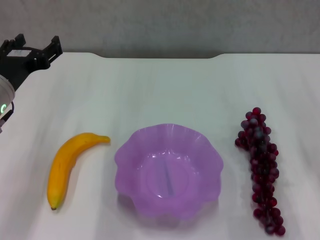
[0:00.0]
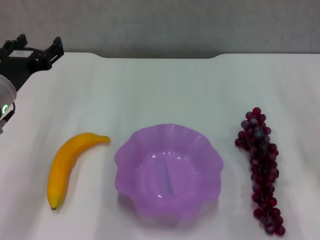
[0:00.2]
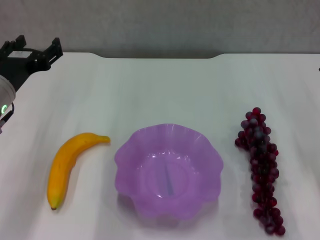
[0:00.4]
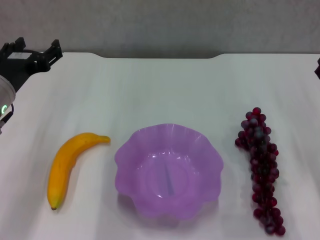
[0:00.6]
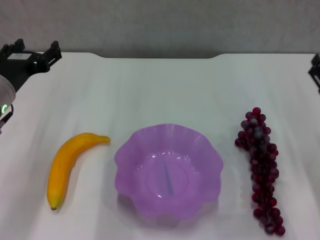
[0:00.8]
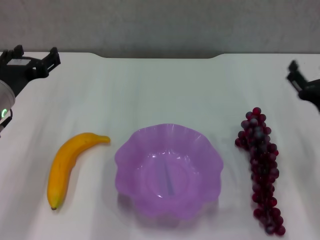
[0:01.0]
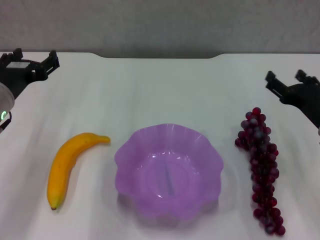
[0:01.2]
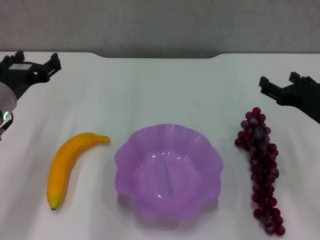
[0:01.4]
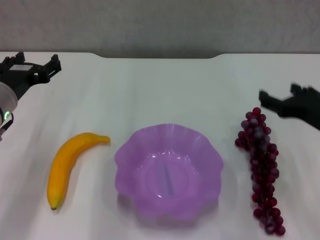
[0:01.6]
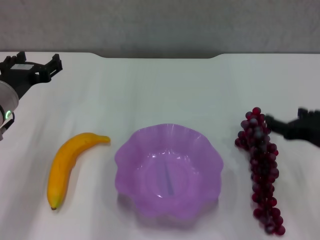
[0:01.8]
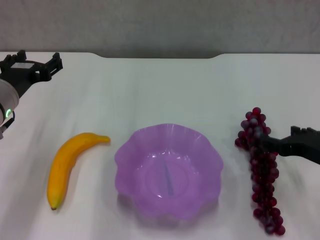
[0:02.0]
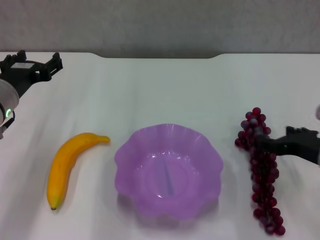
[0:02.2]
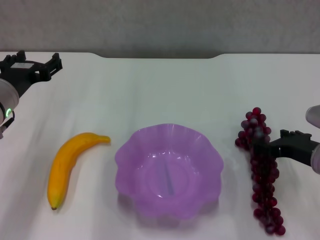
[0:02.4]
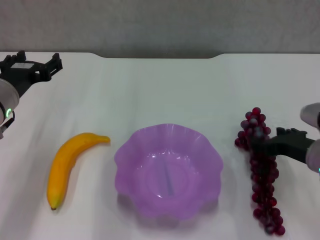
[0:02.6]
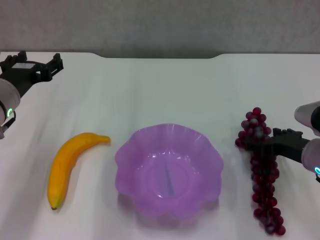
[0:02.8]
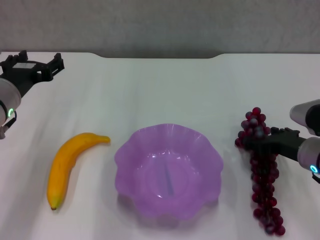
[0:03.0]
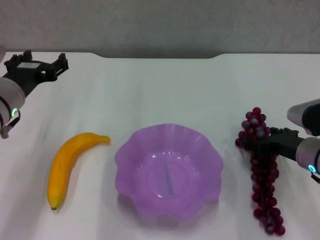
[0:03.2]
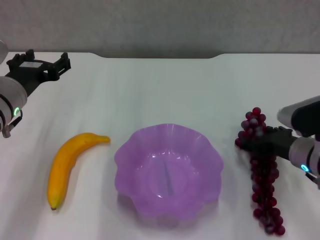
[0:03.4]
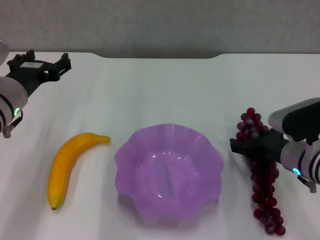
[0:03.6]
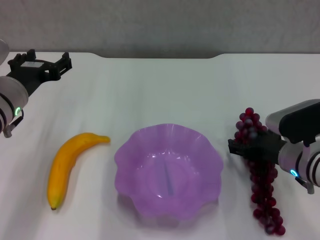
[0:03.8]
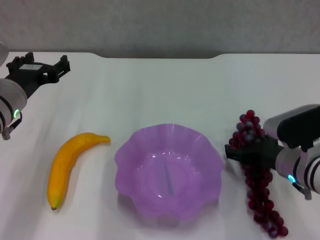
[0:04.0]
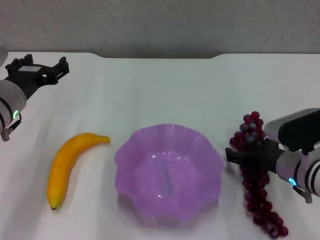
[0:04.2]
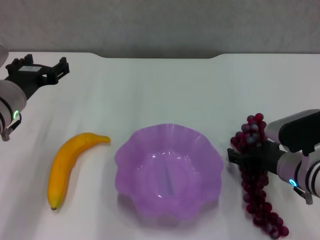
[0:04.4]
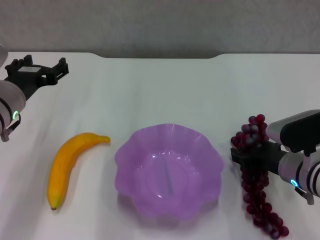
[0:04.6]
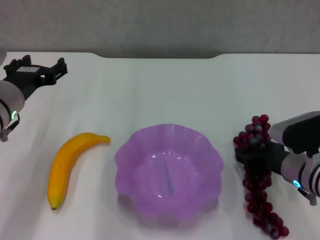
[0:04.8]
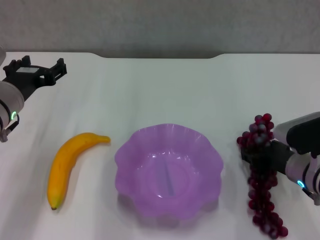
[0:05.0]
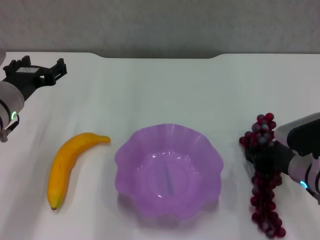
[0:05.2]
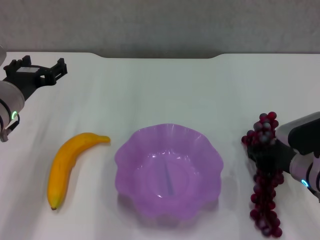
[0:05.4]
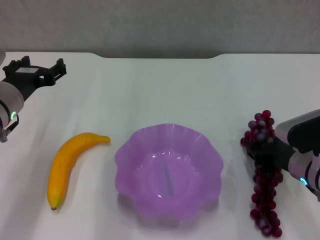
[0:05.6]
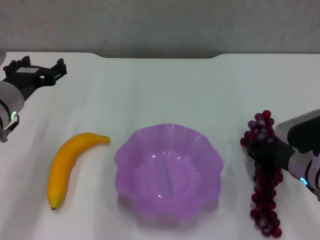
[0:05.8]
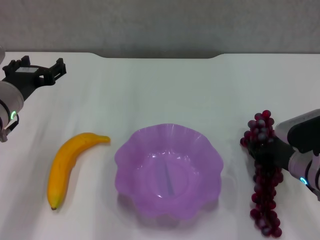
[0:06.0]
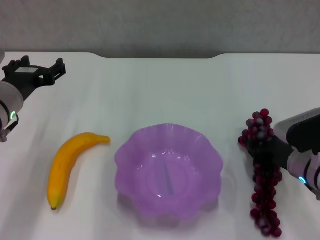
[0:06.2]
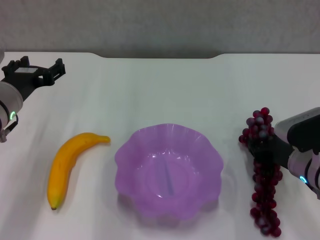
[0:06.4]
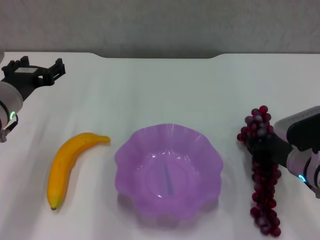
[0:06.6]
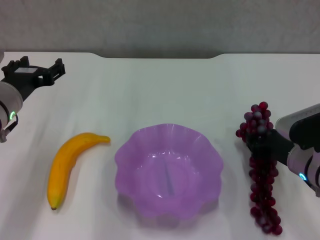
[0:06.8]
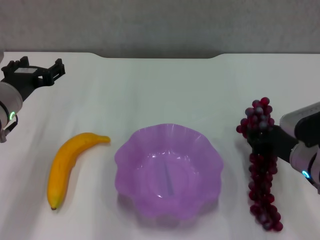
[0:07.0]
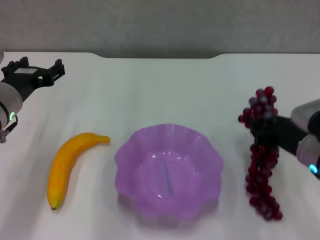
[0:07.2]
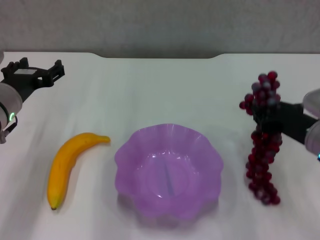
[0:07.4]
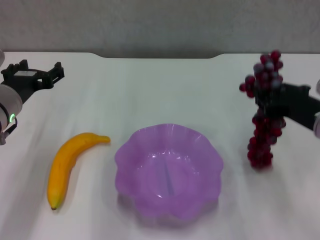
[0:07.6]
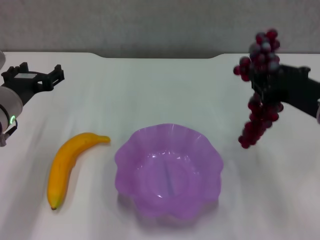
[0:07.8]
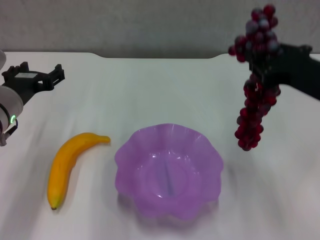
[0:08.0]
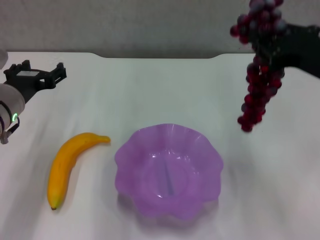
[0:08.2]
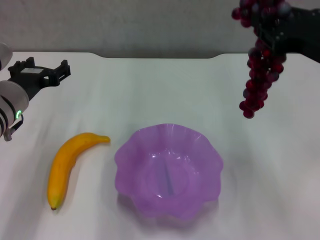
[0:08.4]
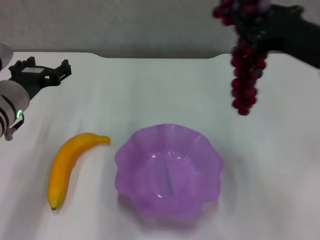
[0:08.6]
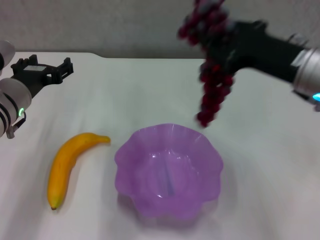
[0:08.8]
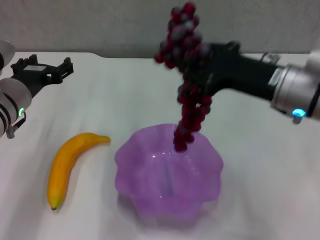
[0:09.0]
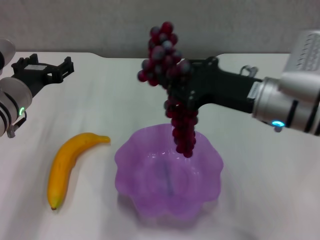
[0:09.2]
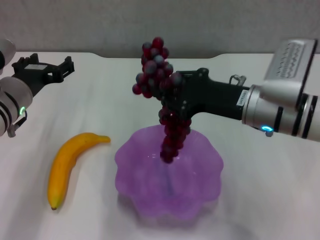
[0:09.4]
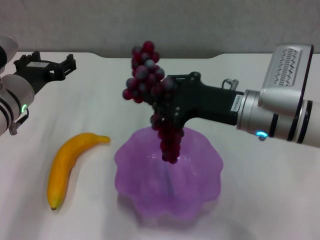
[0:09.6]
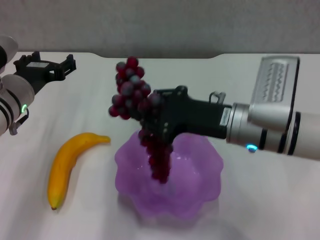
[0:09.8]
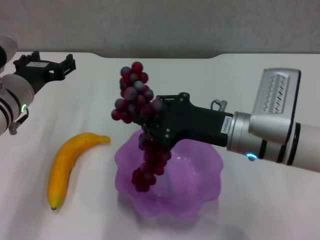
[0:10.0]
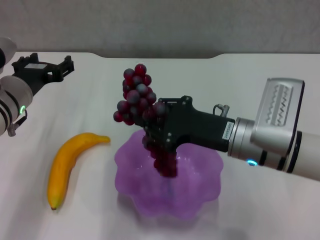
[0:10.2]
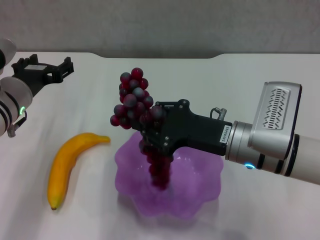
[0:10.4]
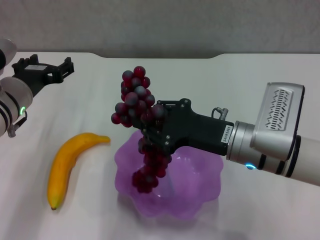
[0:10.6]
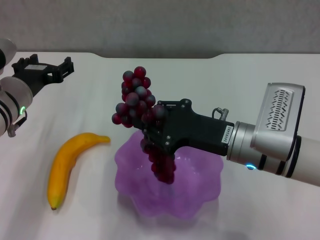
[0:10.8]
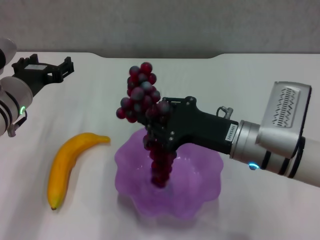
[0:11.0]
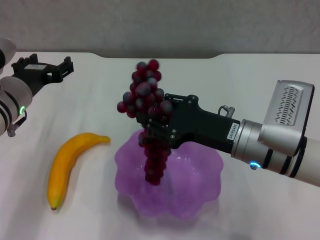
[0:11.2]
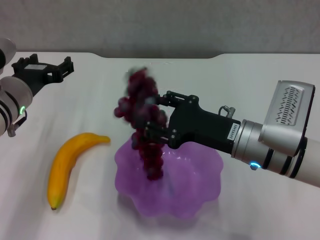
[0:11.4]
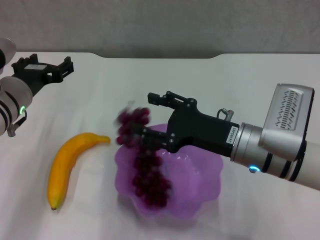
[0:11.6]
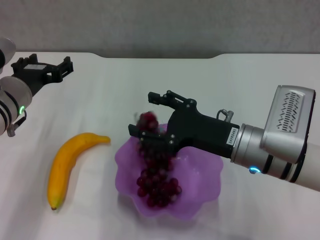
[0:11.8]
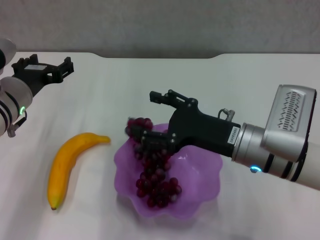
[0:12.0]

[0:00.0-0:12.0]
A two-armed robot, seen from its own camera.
Step, 0:00.0 to 0:05.2: Grasp the grape with right gripper.
0:00.0 to 0:01.6: The right gripper shifts about 5 cm upward.
0:01.6 to 0:03.0: The right gripper goes about 5 cm downward.
0:03.0 to 0:04.4: There are only small adjustments of the grippers.
0:04.4 to 0:06.0: The right gripper closes up.
0:06.0 to 0:07.6: The right gripper heads upward, covering some 10 cm.
0:07.6 to 0:09.0: The right gripper moves to the left, approximately 5 cm.
0:09.0 to 0:10.4: The right gripper is displaced downward by roughly 5 cm.
0:10.4 to 0:12.0: The right gripper opens up.

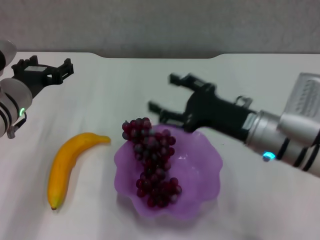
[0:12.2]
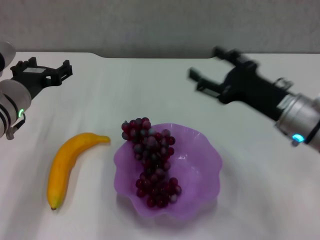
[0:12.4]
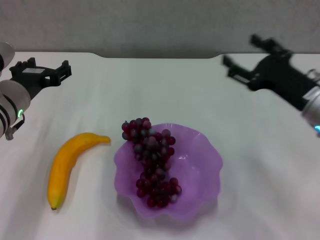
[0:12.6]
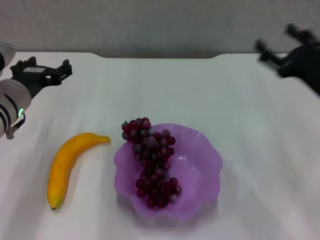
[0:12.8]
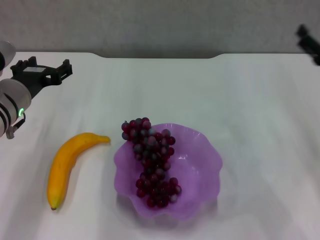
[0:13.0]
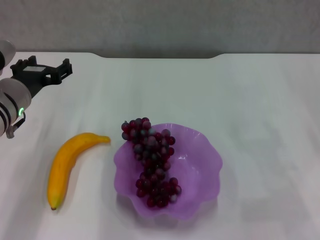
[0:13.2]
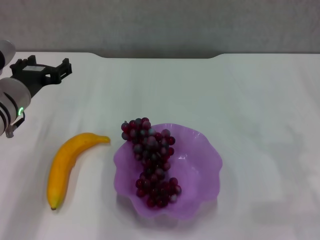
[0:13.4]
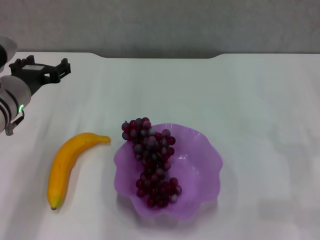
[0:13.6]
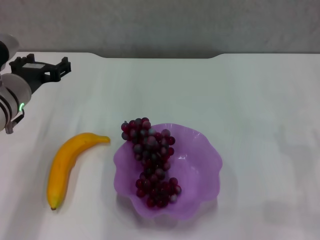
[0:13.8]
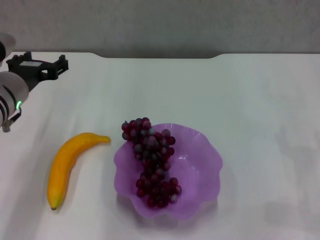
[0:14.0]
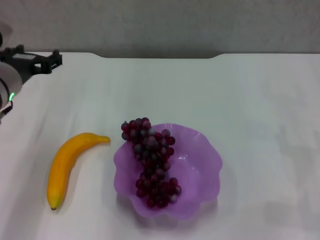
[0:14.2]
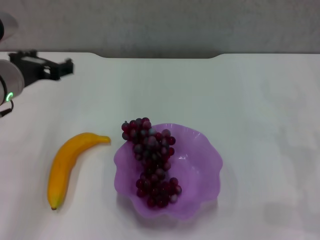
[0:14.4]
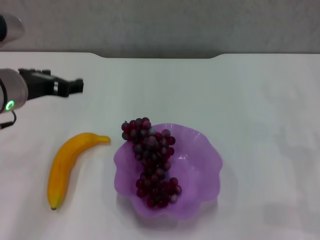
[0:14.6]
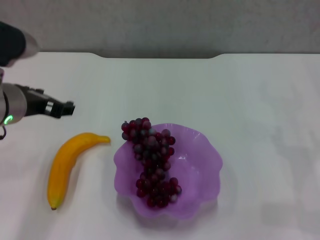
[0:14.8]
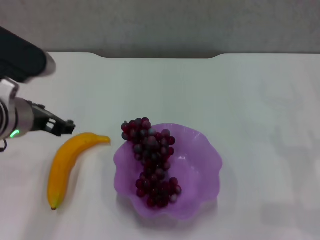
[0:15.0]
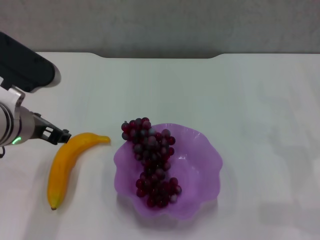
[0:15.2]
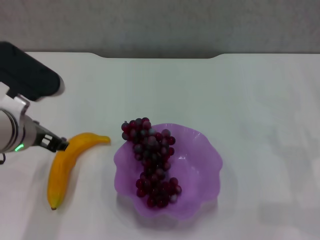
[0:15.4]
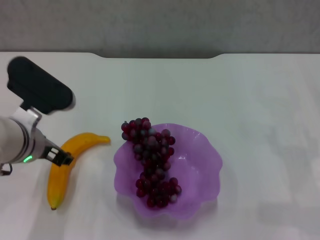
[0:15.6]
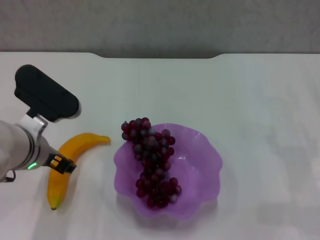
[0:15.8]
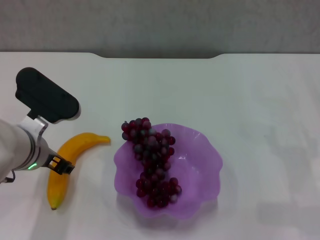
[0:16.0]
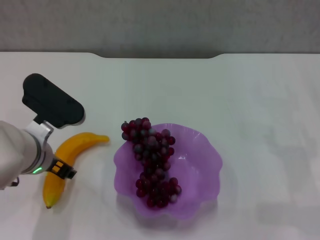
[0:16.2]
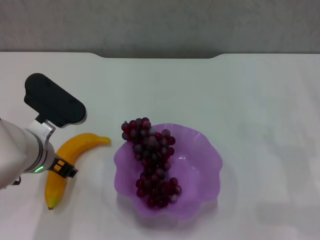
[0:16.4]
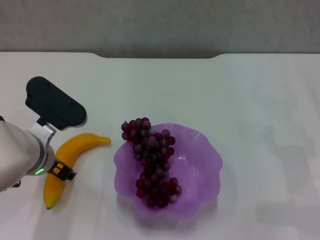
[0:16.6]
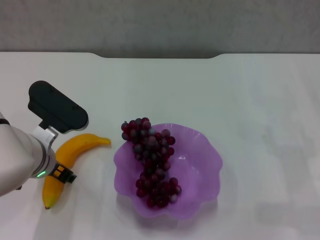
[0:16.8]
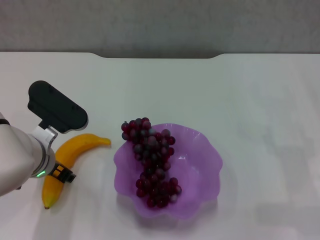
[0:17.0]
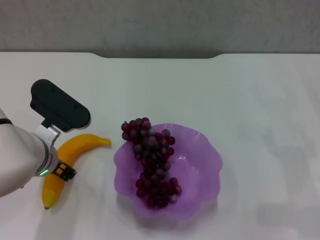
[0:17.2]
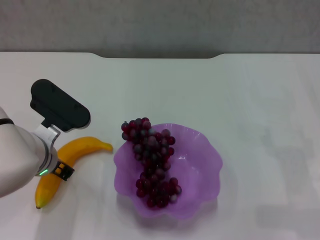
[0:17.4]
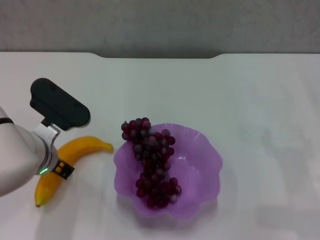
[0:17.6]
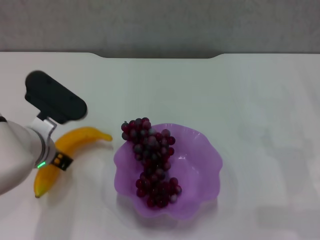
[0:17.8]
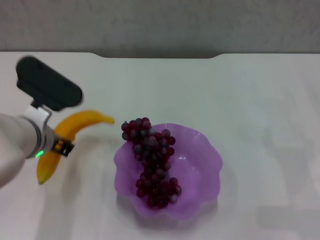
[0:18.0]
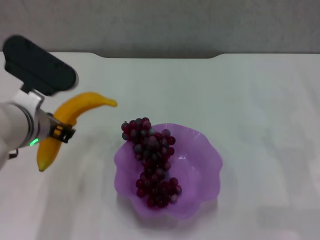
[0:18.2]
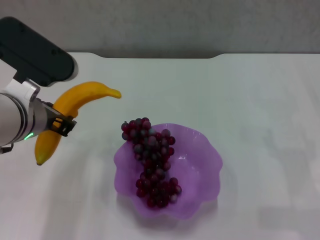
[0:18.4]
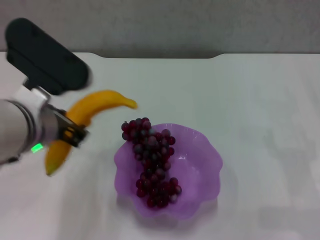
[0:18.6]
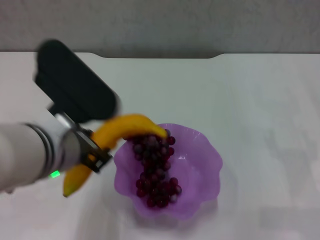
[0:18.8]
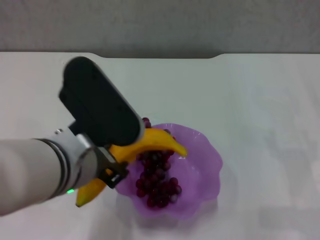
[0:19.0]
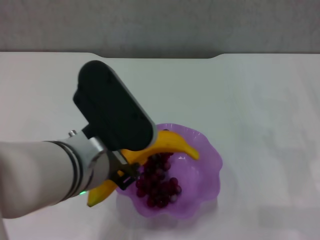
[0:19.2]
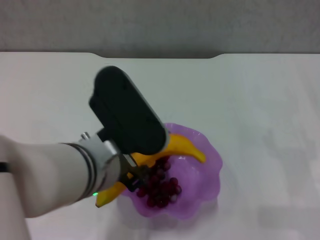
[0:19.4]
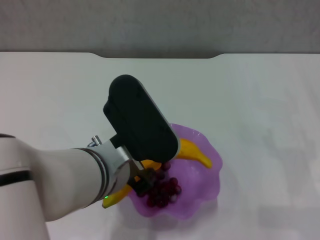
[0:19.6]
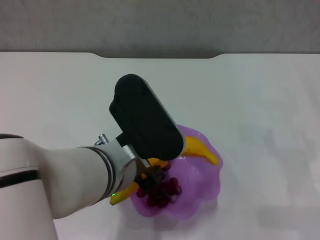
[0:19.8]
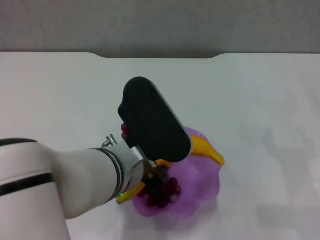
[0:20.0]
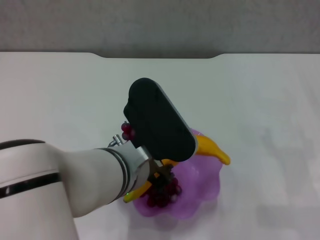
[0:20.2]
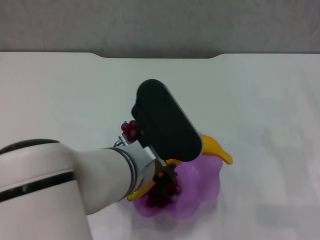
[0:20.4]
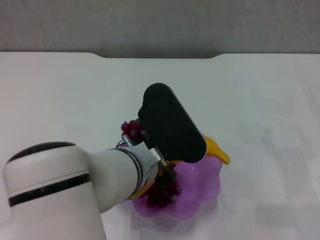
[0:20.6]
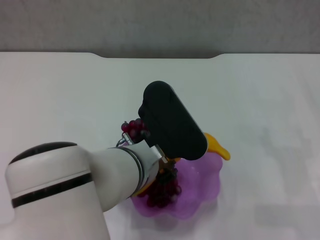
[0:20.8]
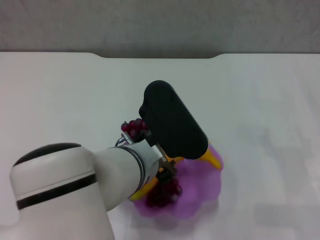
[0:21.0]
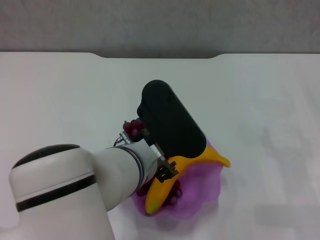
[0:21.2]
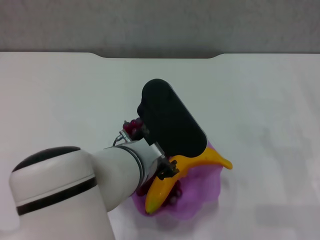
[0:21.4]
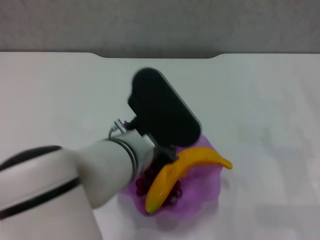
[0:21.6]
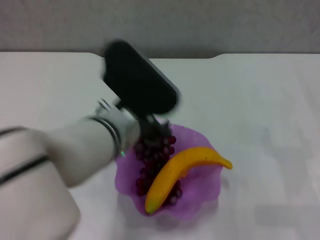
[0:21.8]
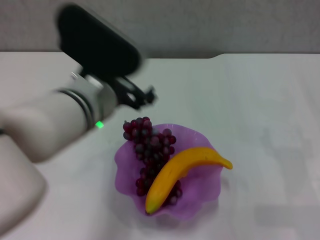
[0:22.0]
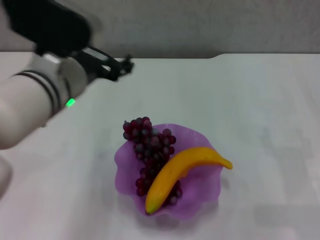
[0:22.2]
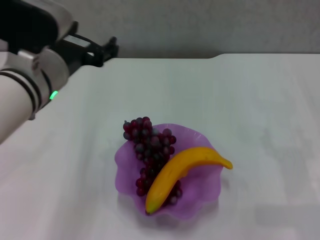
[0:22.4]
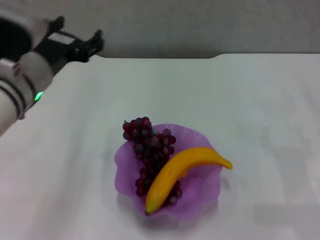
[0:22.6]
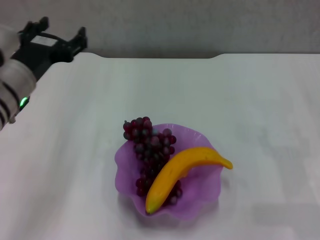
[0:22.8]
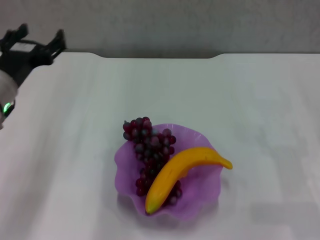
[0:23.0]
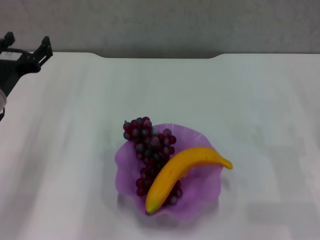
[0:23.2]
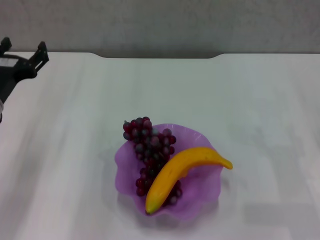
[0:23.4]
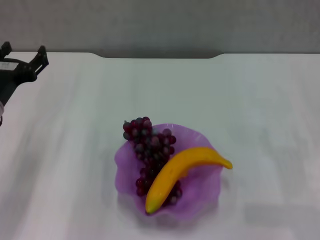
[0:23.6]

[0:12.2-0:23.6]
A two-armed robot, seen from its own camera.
Step, 0:12.4 to 0:17.4: Grasp the banana with left gripper.
Step, 0:17.6 to 0:21.6: Place the banana in the purple plate with left gripper.
0:12.2 to 0:13.6: The right gripper is displaced to the right by roughly 20 cm.
0:13.6 to 0:15.0: The left gripper shifts some 5 cm backward.
0:15.0 to 0:16.4: The left gripper moves downward, roughly 5 cm.
0:16.4 to 0:17.8: The left gripper closes its fingers.
0:17.8 to 0:19.4: The left gripper moves to the right, backward and upward, about 15 cm.
0:19.4 to 0:20.8: The left gripper moves about 5 cm.
0:20.8 to 0:22.2: The left gripper shifts some 10 cm to the left, upward and forward, and opens up.
0:22.2 to 0:23.6: The left gripper is displaced to the left and downward by roughly 20 cm.
